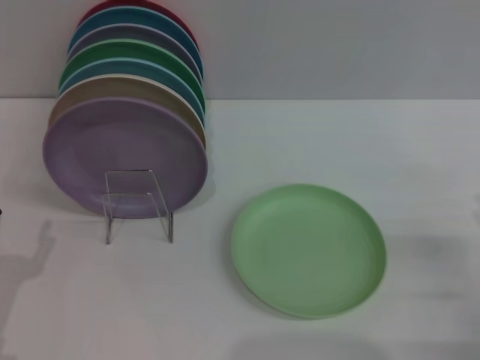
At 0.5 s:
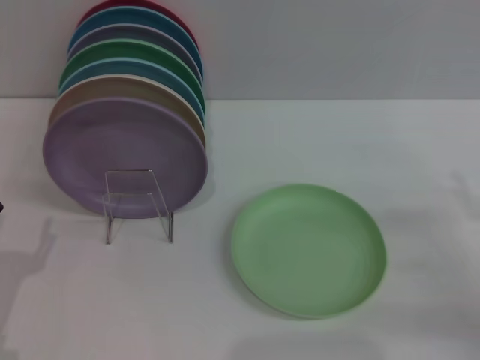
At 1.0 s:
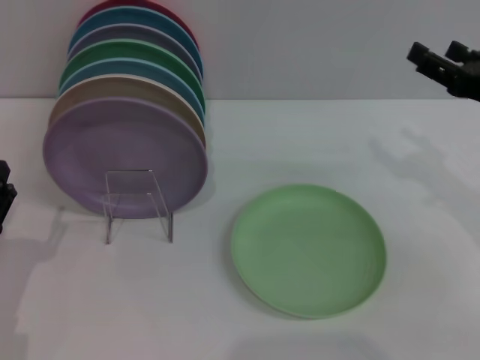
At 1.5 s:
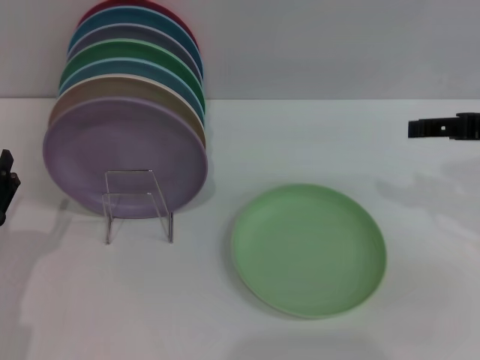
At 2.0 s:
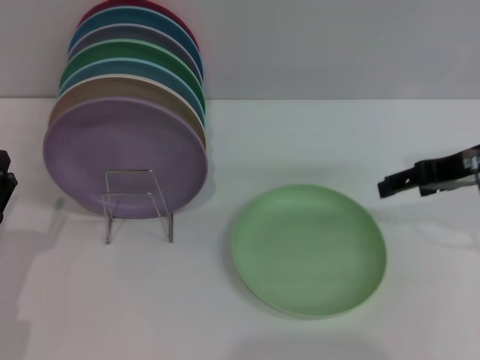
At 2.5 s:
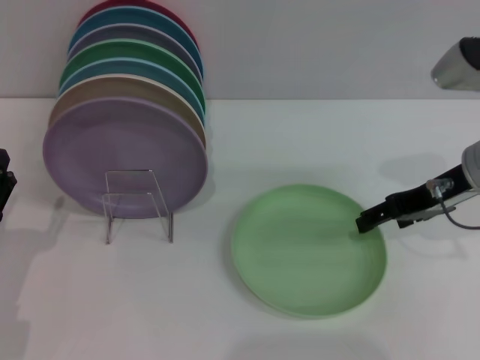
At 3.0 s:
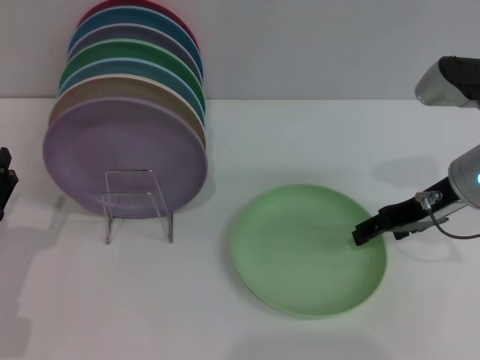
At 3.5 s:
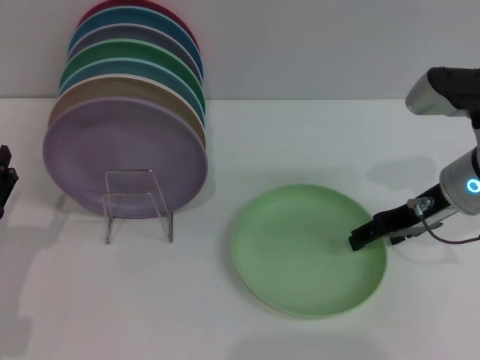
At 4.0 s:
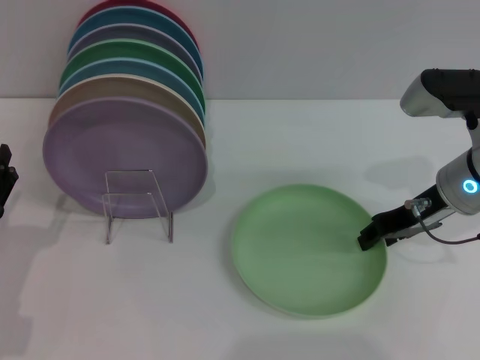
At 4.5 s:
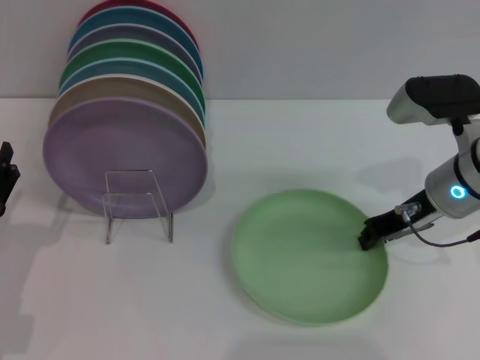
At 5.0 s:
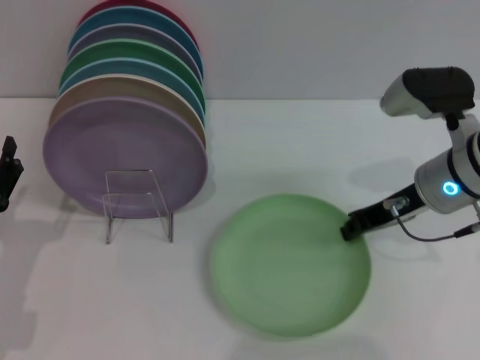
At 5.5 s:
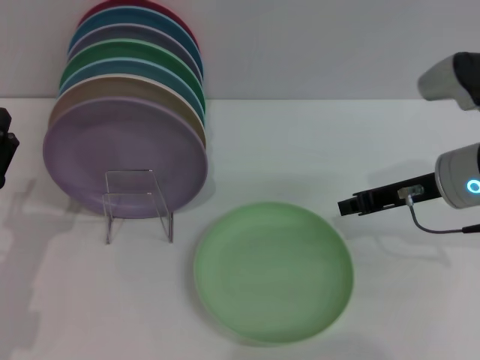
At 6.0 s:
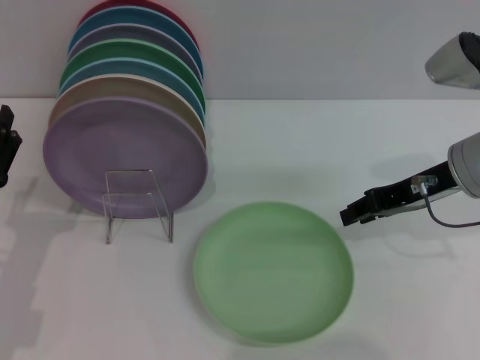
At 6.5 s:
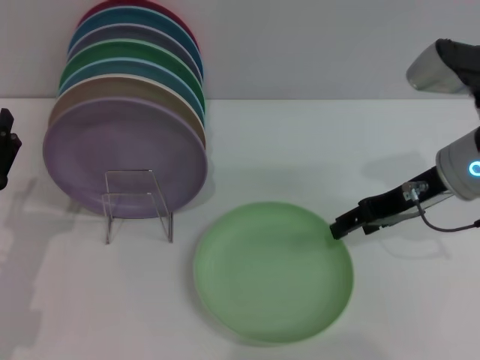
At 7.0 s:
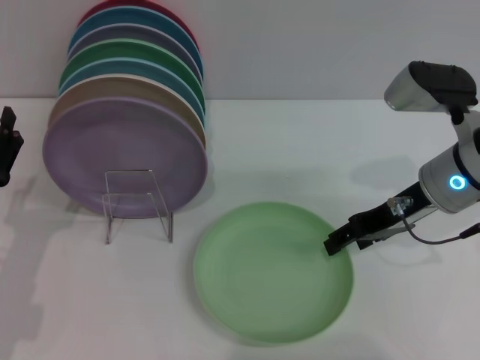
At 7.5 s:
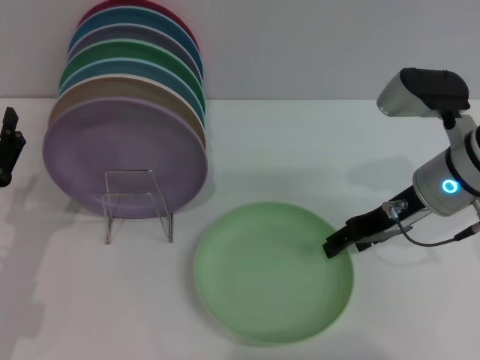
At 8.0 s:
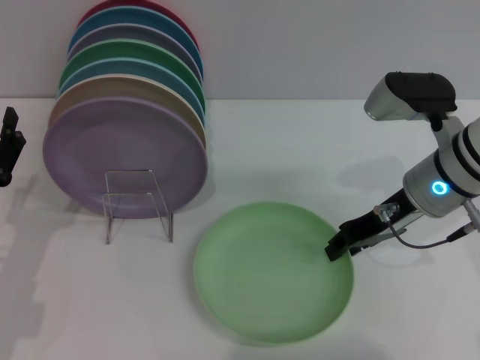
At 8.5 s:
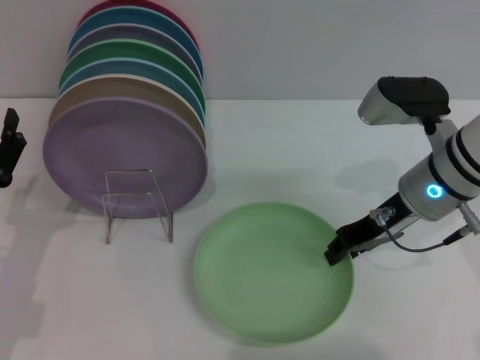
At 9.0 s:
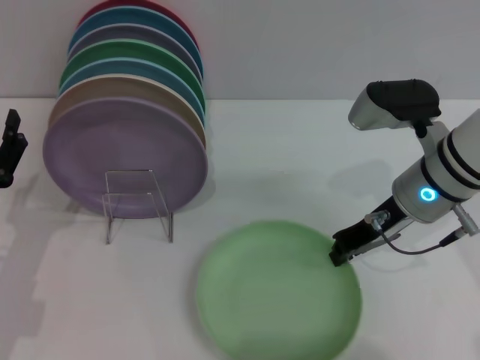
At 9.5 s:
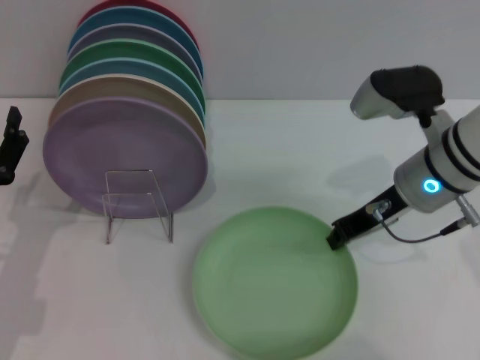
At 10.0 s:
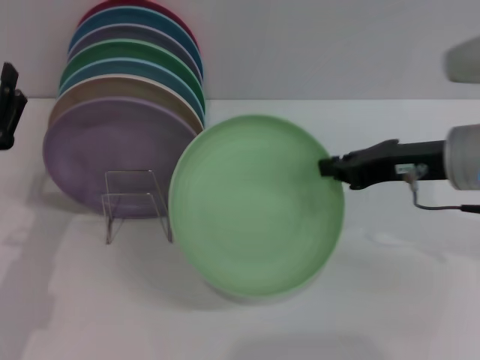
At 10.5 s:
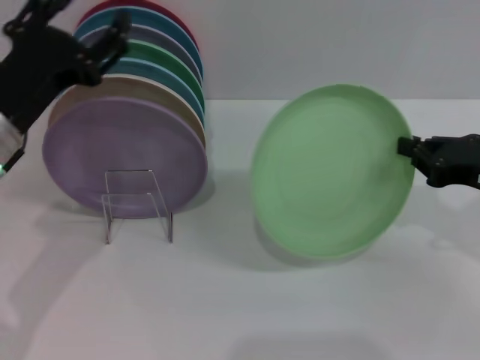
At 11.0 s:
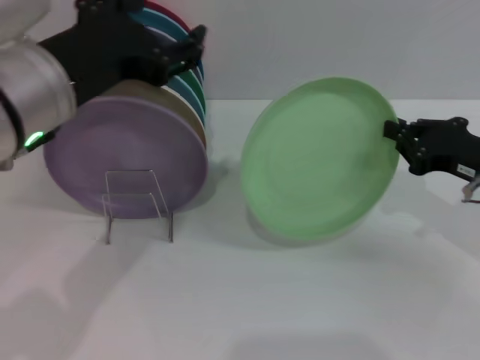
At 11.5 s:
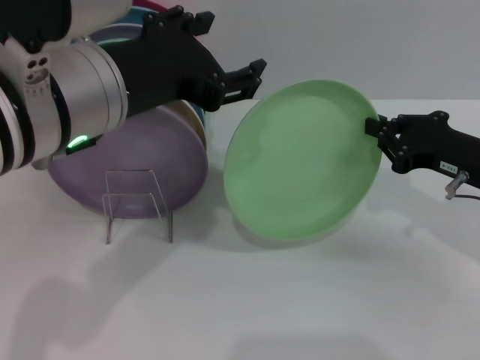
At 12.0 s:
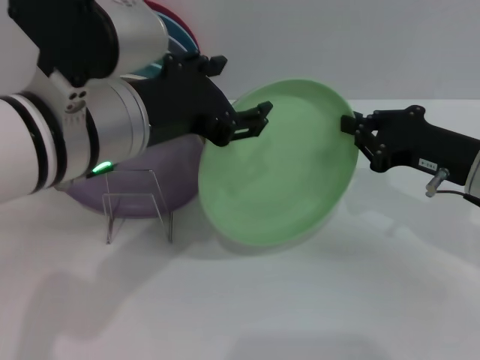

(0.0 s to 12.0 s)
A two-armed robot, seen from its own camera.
Task of the whole recording: Grip the plate with one hand, pass it to the other, then set it on the shelf.
Step, 0.0 s - 10.0 s: Pick up the plate with the right gripper.
0.0 s - 2.0 s: The right gripper is displaced upward, forward and to the left by roughly 20 cm.
2.0 s - 4.0 s: The right gripper goes roughly 5 cm downward.
4.0 s - 6.0 s: The right gripper closes its fingers.
6.0 s - 8.0 s: The right gripper opens its fingers.
8.0 s - 10.0 s: The right gripper shifts by approximately 5 cm, and closes.
10.0 s - 12.0 s: The left gripper shifts roughly 20 cm upward and to the right. Meanwhile the right gripper goes about 5 cm downward.

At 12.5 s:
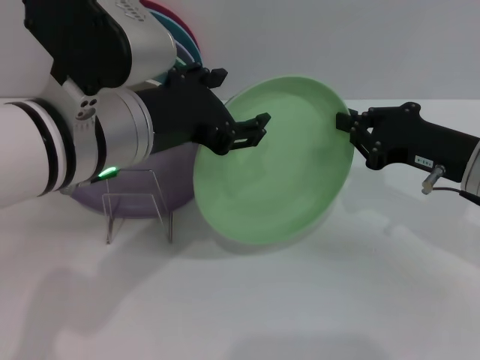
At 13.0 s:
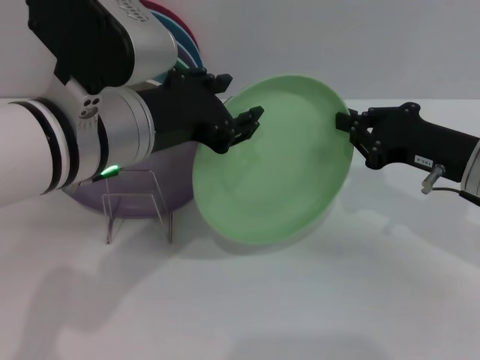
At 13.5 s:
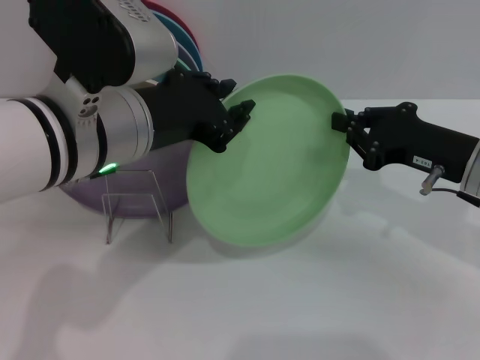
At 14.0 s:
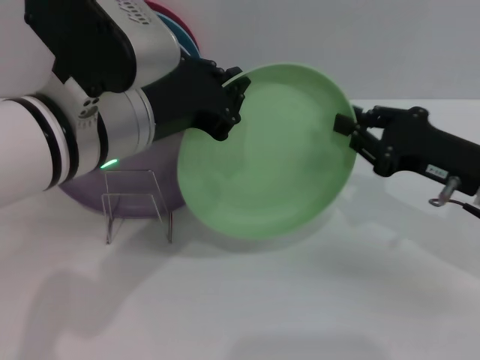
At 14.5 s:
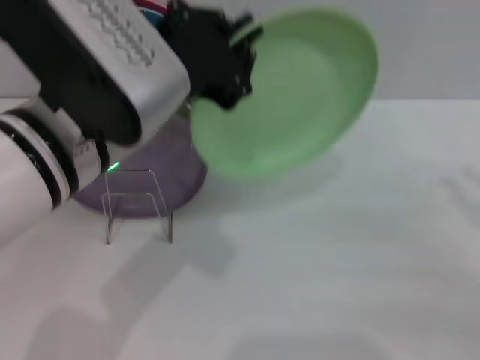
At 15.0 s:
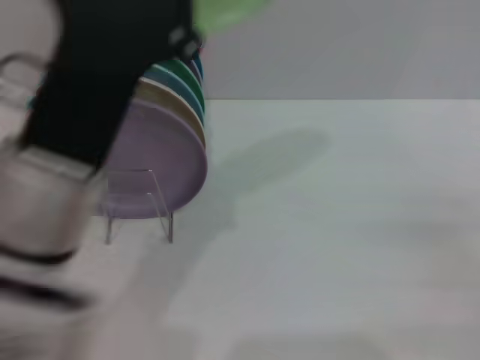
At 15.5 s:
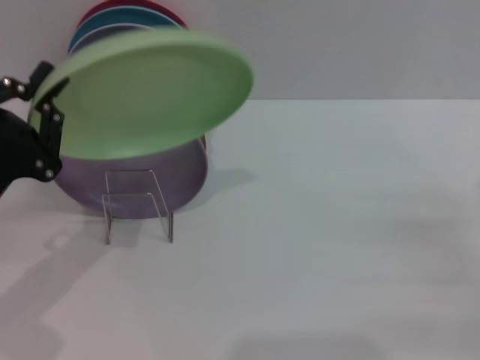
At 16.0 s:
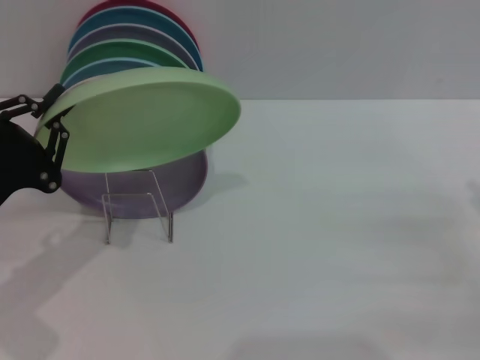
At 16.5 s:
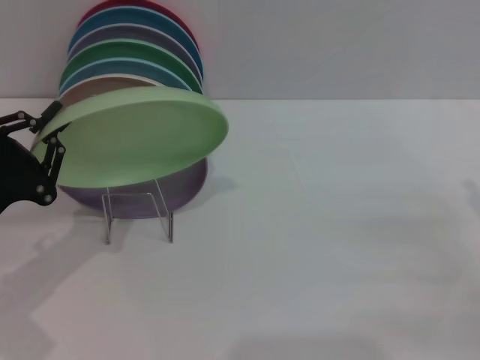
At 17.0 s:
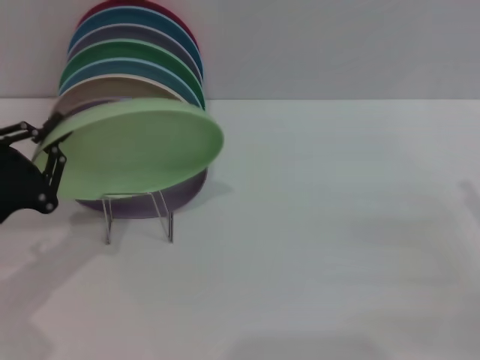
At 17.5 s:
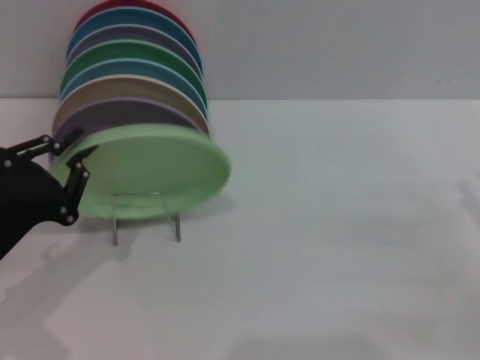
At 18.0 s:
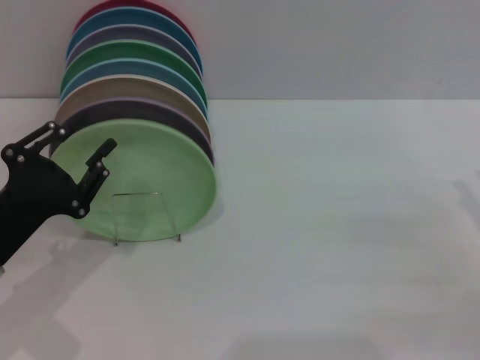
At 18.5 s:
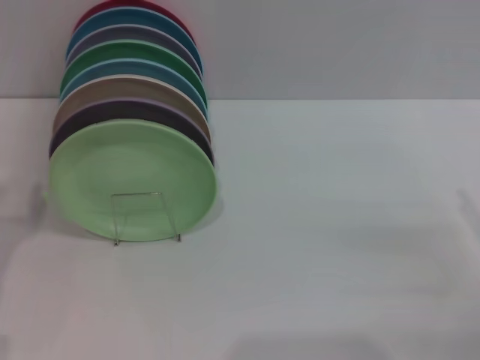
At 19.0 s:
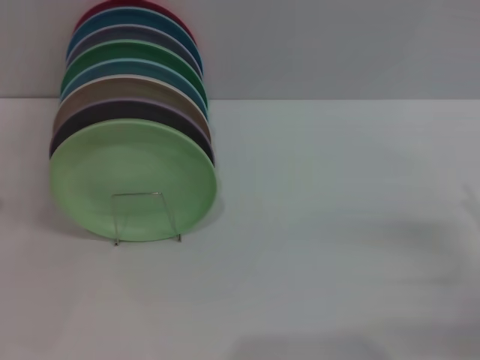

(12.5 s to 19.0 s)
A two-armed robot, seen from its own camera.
Task of the whole recording: Grip the plate with one hand, pass it to the other, then set it on the shelf.
Step, 14.5 s - 18.0 s: Place the plate on the shelf with the left gripper.
12.5 s - 14.5 s: The right gripper is displaced to the right and backward by about 15 cm, and opens its fingers. Meanwhile the left gripper closes its fingers.
14.5 s - 17.0 s: The left gripper moves to the left and downward, some 25 cm.
17.0 s - 19.0 s: The left gripper moves some 5 cm, and opens up.
